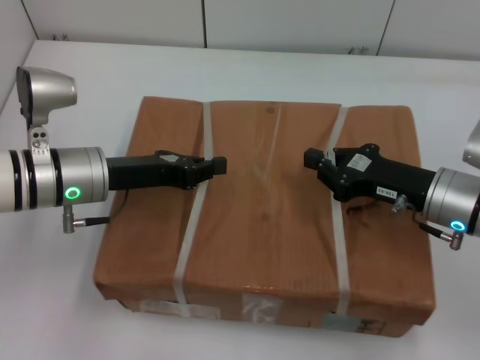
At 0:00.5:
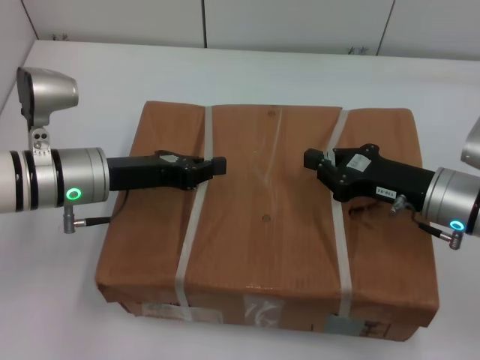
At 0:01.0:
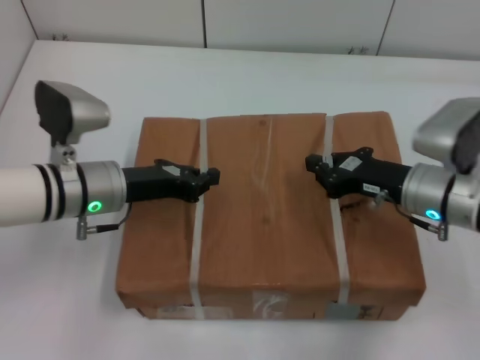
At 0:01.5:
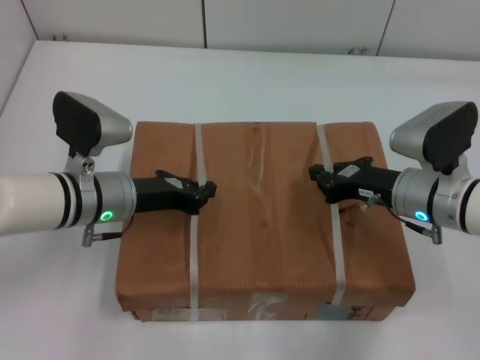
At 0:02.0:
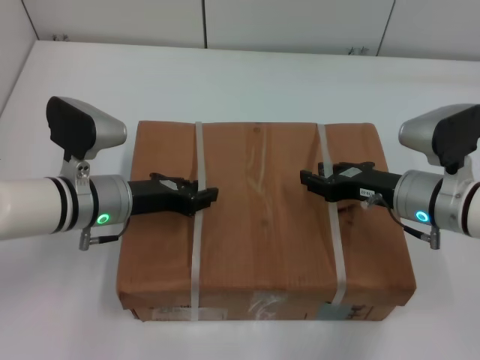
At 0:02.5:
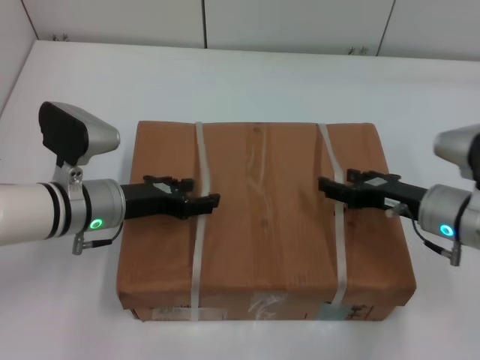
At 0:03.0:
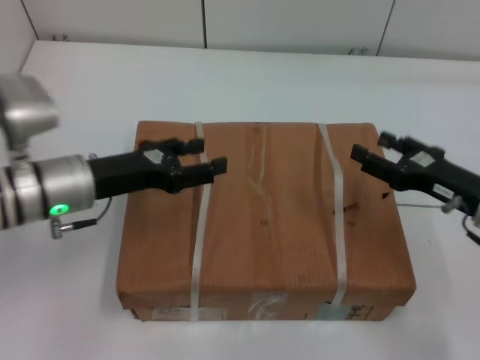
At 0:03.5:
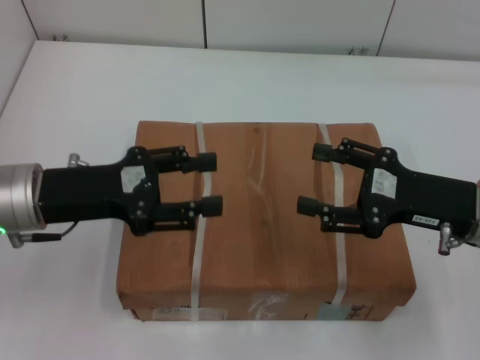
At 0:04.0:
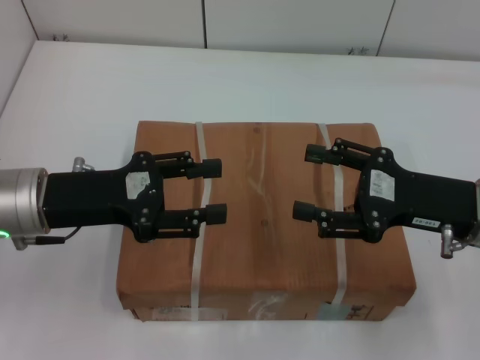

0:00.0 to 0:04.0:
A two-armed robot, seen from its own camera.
Task of the whole recording: place the box on the table with both arms.
Step, 0:00.0 to 0:01.0: Place the box on the table with left gripper.
Step, 0:00.0 to 0:01.0: Place the box on the table with right gripper.
Step, 0:01.5 to 0:02.0: Loosen the box on the table with left gripper.
Step, 0:01.5 to 0:02.0: Loosen the box on the table with right gripper.
0:02.0 to 0:04.0: The two grippers go about 10 cm upward and backward. The right gripper opens its fingers; the left gripper opens up.
